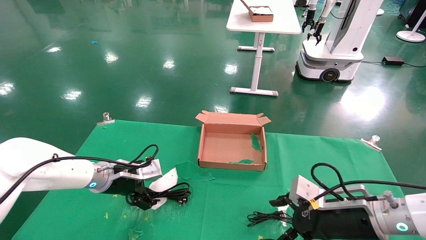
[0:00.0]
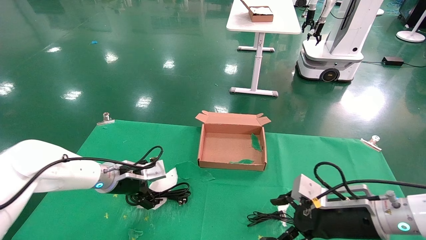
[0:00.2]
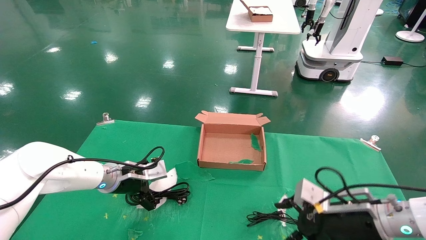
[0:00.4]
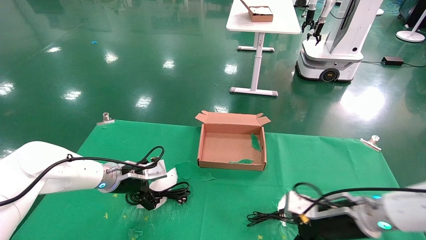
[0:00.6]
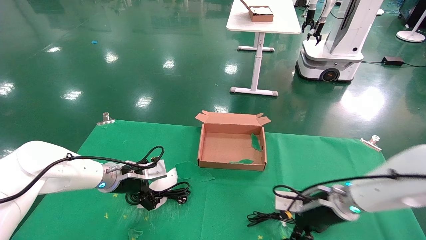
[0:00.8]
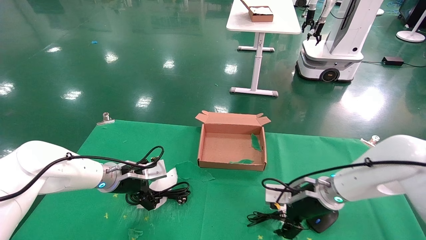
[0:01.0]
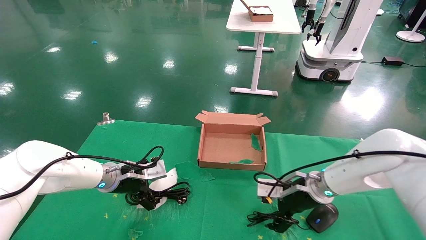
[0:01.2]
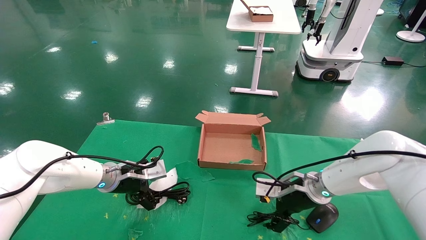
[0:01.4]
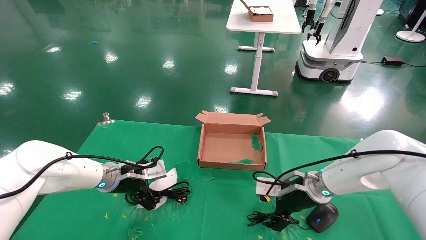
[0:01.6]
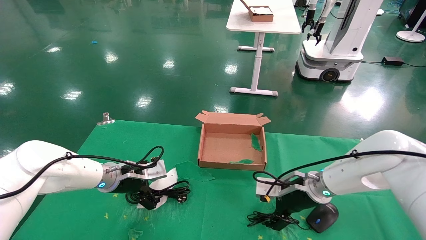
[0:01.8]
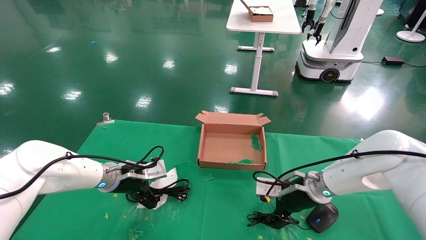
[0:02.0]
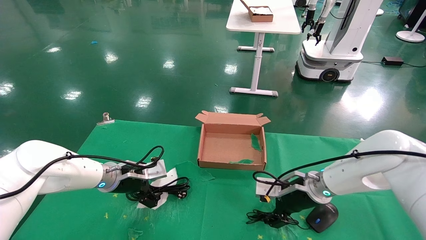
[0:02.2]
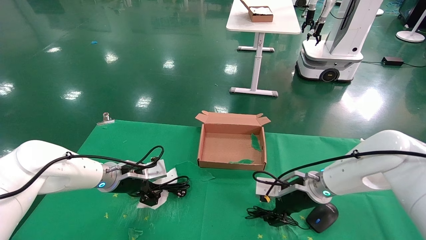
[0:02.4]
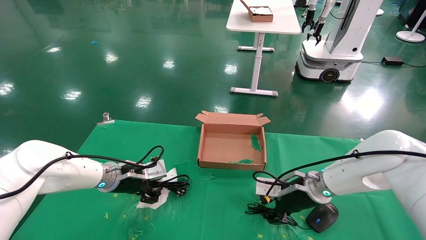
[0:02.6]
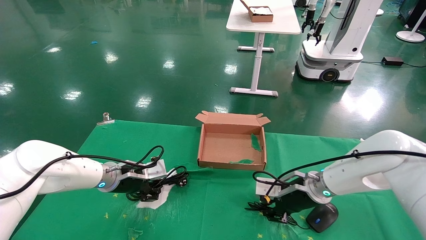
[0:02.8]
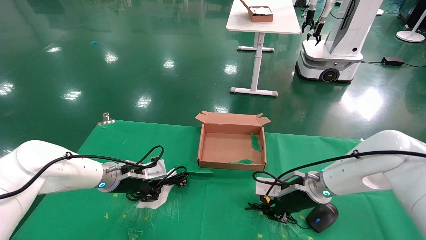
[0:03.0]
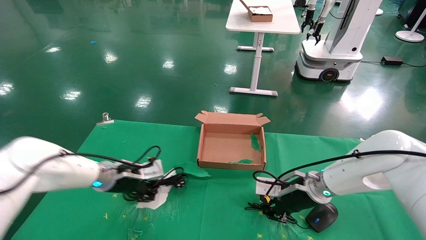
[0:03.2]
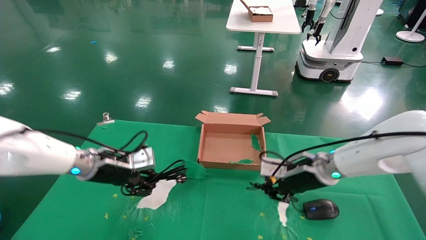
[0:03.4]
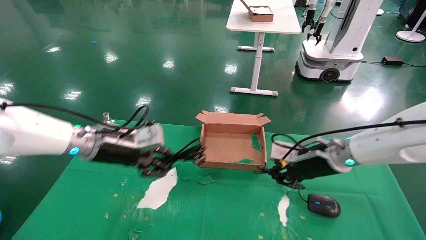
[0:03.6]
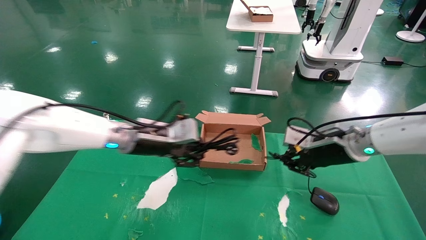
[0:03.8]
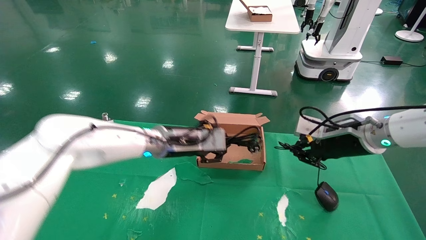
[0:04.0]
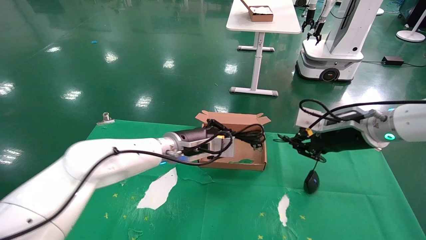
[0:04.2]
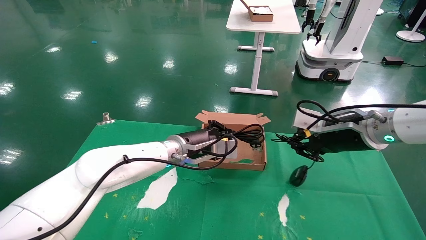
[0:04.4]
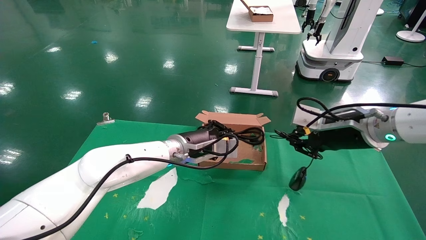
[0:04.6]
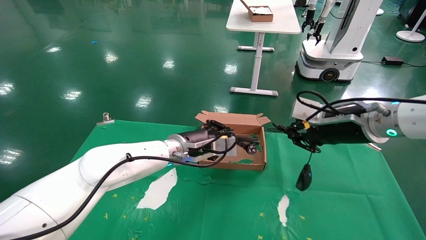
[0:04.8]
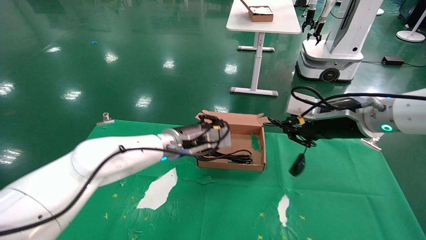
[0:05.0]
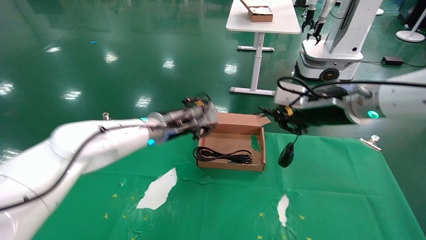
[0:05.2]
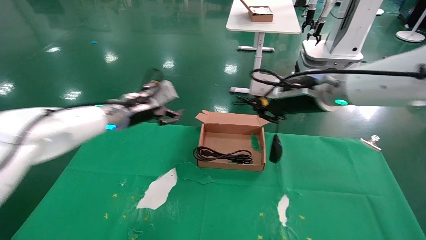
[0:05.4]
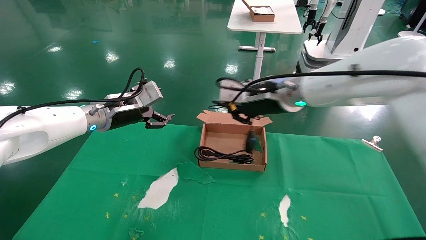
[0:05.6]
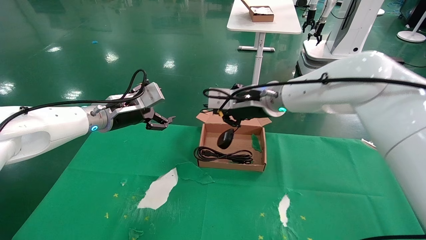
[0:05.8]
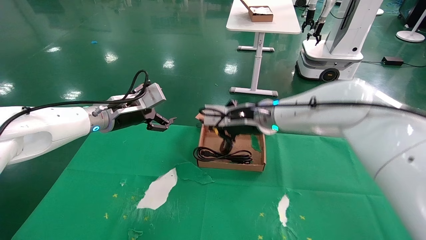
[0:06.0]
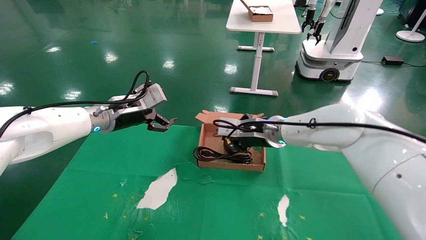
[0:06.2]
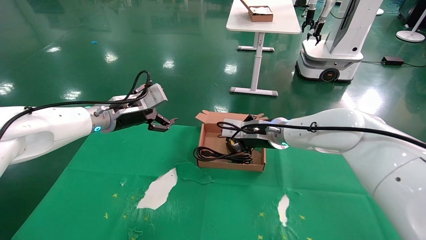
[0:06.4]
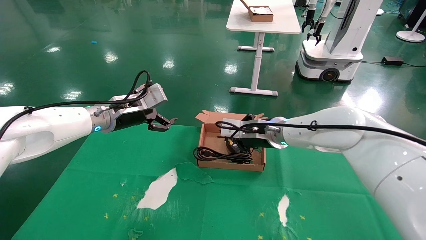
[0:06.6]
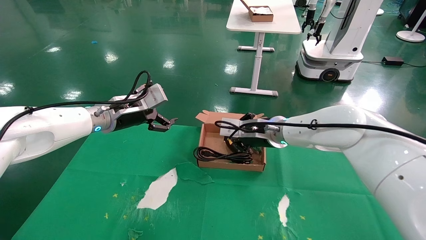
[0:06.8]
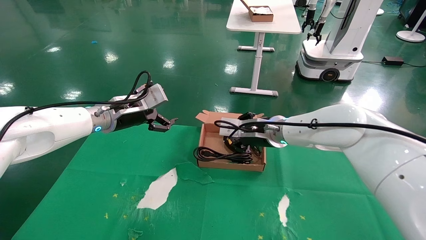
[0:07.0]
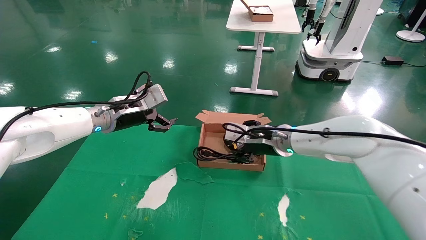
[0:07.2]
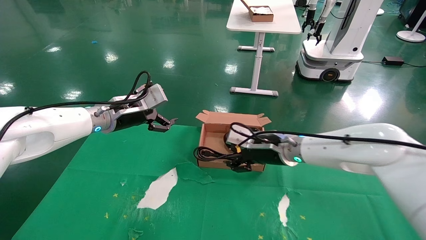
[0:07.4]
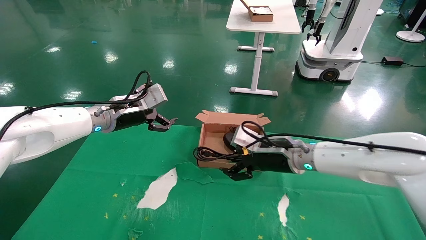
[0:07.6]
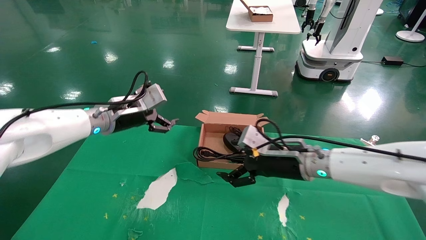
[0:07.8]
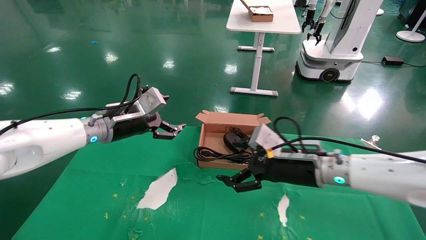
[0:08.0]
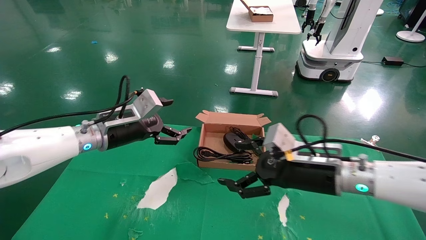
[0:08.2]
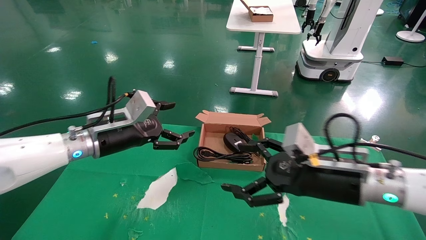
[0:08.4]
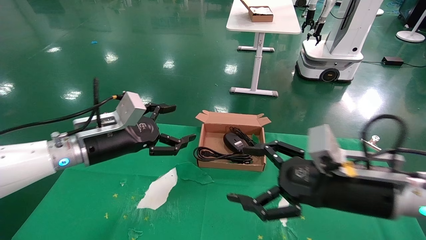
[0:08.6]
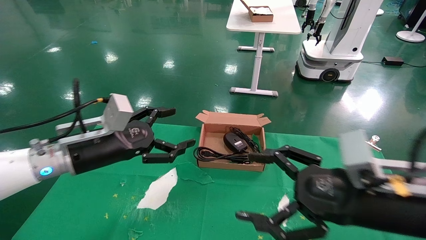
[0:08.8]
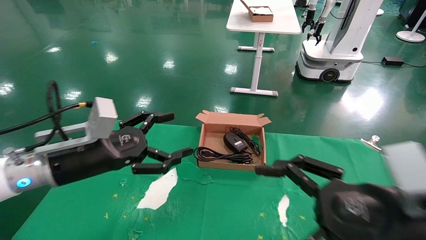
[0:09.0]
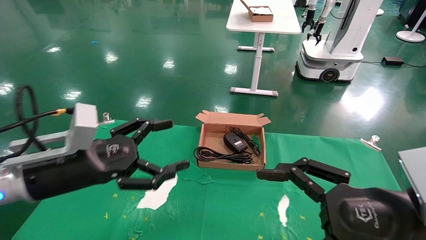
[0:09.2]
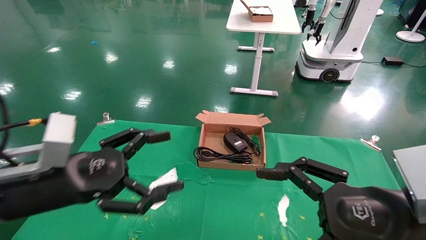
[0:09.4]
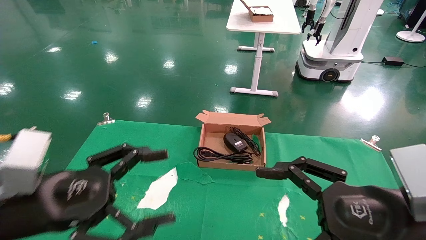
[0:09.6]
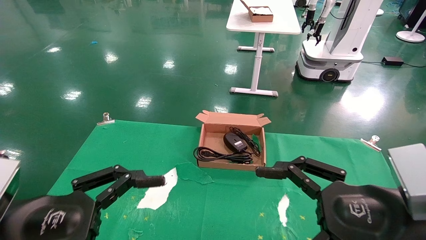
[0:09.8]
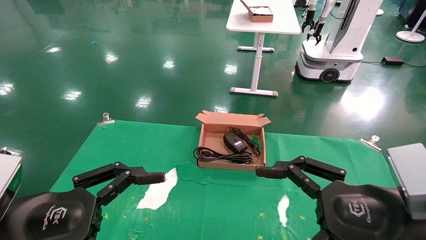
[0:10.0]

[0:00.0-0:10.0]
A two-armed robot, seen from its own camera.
Step, 0:00.0 to 0:03.0: Grab and lift both the mouse and power cord from the accessory packaging area at the same time.
Step, 0:03.2 to 0:06.6: Place the mouse and power cord into the box.
0:00.0 to 0:01.4: The right gripper travels forward and to the left by roughly 15 cm.
0:01.4 to 0:02.8: The right gripper closes up; the left gripper closes its fingers.
0:02.8 to 0:04.2: The right gripper shifts roughly 15 cm upward and to the right. Meanwhile the left gripper is displaced to the right and upward by approximately 15 cm.
0:04.2 to 0:05.8: The right gripper moves to the left, some 15 cm, while the left gripper moves to the left and upward, roughly 15 cm, and opens up.
0:05.8 to 0:07.2: The right gripper shifts about 10 cm downward, and opens.
0:07.2 to 0:08.6: The right gripper goes some 20 cm backward and to the right, and opens up, while the left gripper shifts roughly 10 cm backward.
0:08.6 to 0:10.0: The left gripper is displaced backward by roughly 20 cm. The right gripper goes about 10 cm backward.

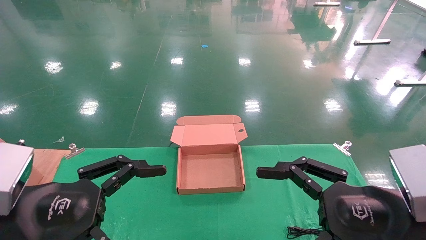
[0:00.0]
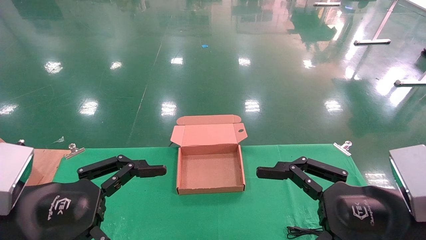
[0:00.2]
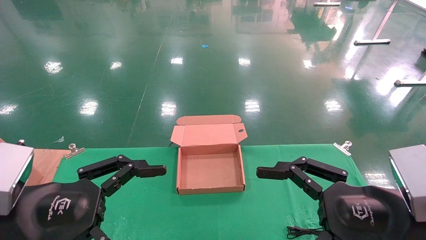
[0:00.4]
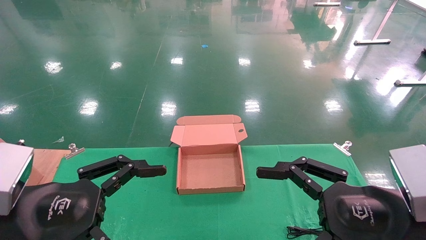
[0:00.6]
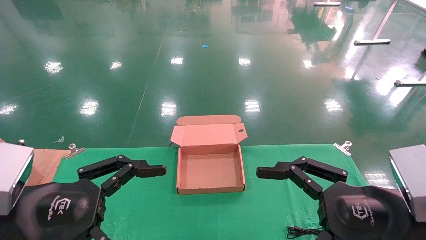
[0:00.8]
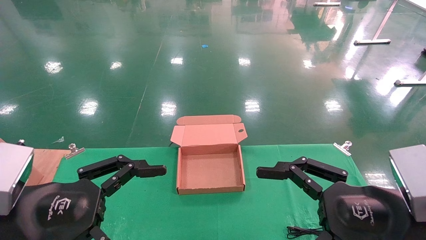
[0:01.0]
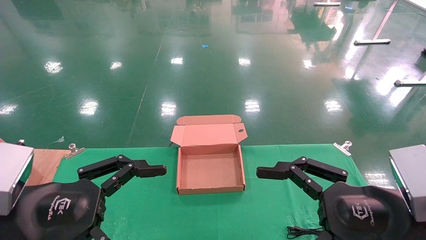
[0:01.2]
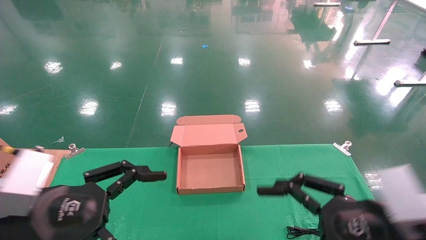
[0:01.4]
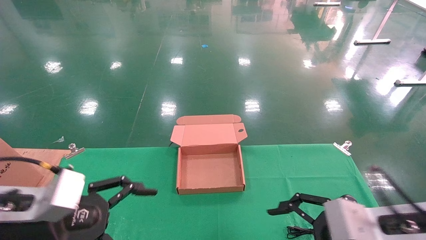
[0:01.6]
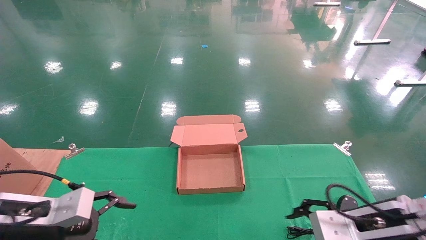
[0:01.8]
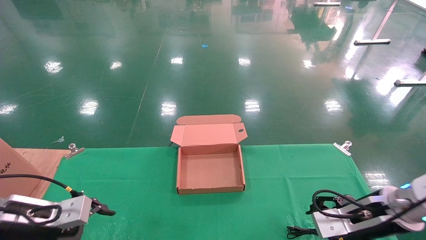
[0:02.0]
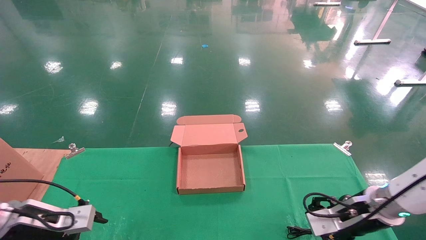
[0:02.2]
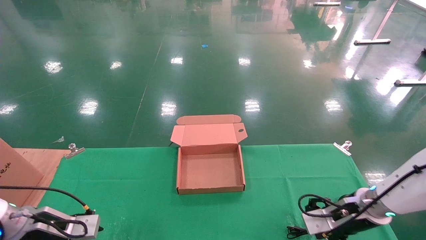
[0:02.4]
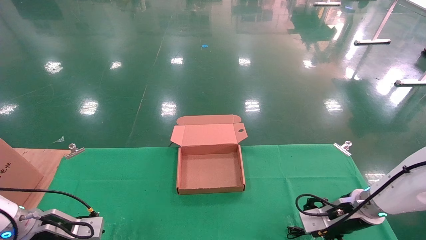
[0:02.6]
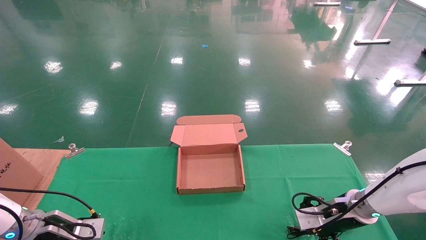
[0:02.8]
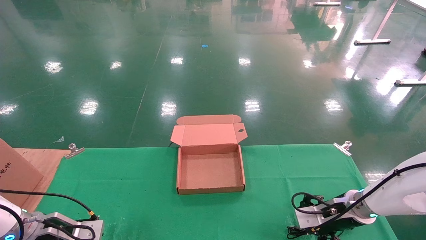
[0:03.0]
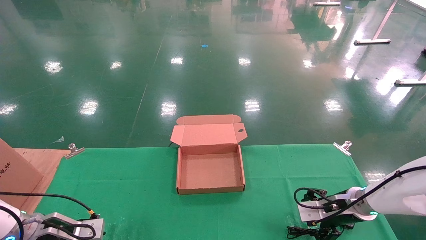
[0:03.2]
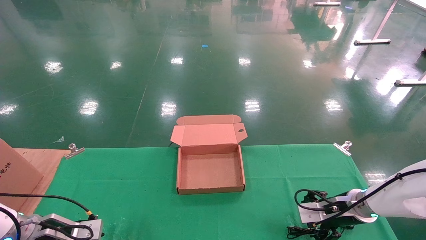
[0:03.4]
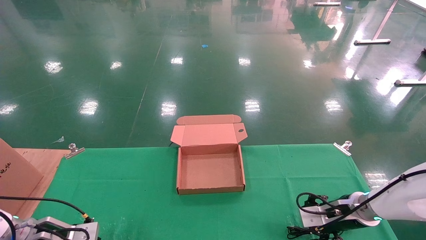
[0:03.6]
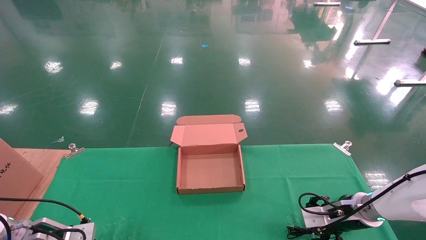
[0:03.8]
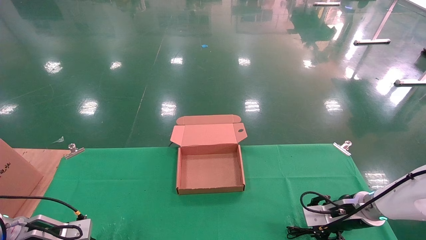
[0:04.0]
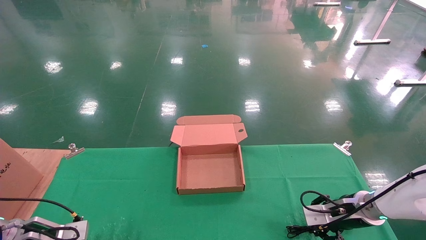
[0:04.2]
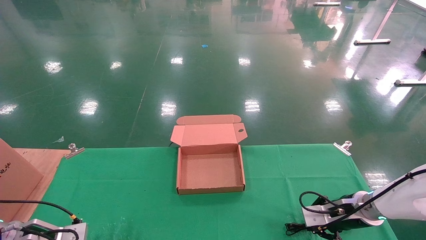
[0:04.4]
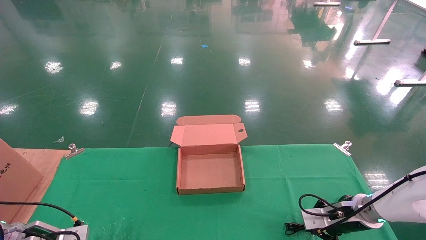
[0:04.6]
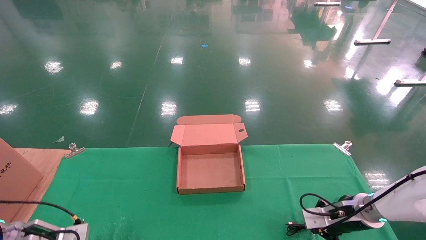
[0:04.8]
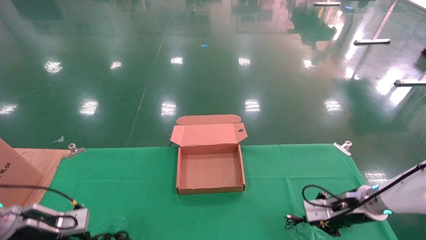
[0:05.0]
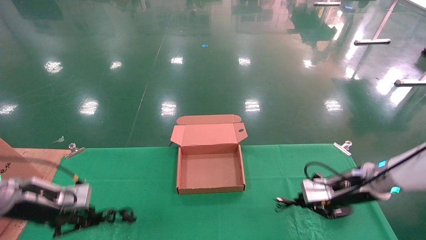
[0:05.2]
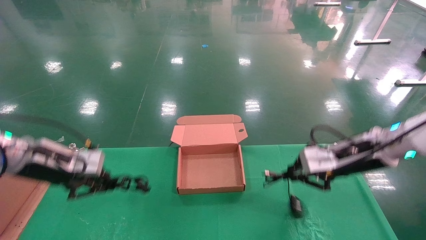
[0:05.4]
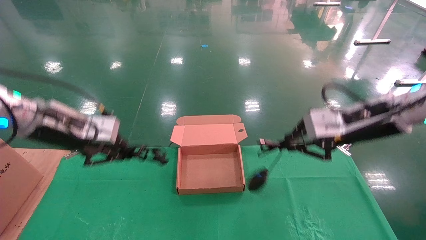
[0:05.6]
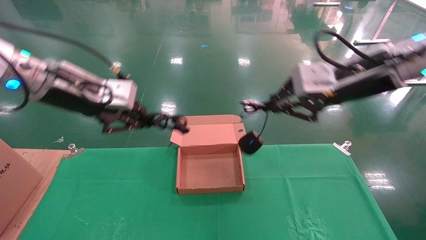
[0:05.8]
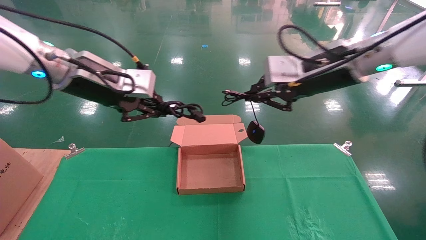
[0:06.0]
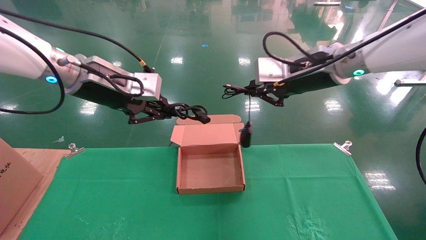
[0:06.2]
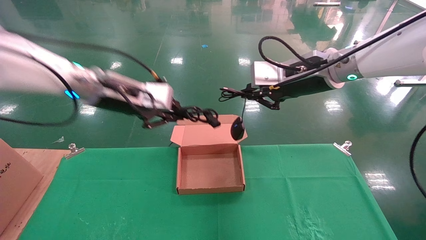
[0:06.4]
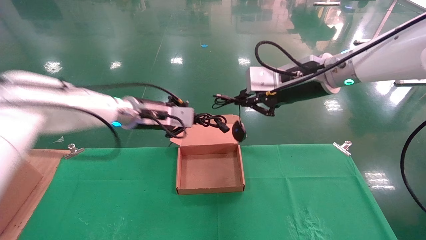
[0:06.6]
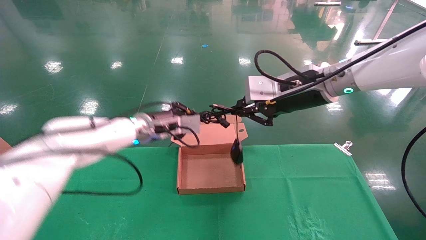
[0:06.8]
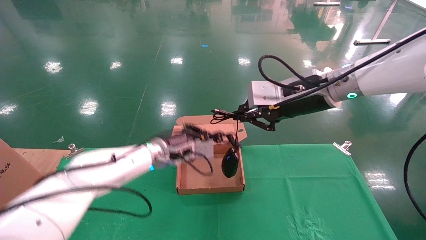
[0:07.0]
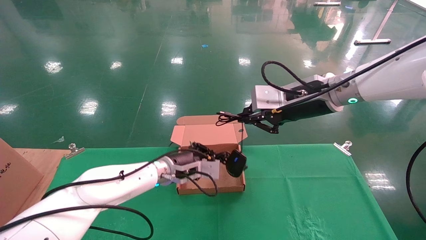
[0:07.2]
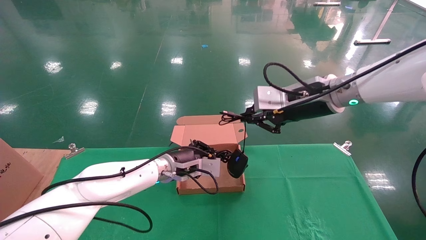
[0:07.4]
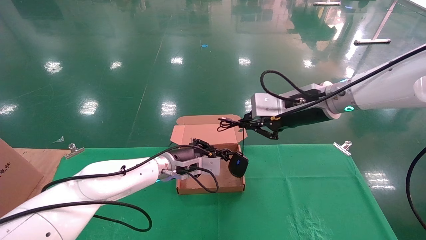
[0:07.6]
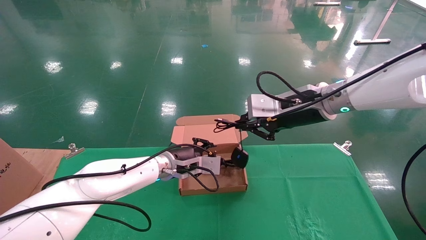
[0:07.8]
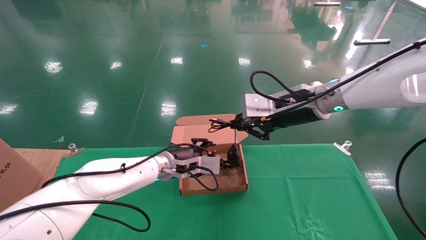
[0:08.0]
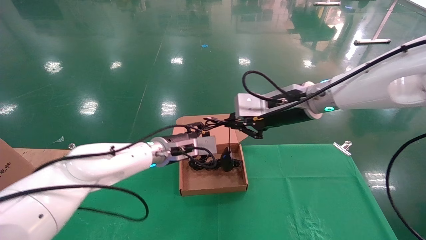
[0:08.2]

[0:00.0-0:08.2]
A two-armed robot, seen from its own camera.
Step, 0:02.0 to 0:05.2: Grab and lift both the mouse and power cord from the accessory packaging area at the same time.
0:00.0 to 0:01.6: Both grippers travel together forward, approximately 5 cm.
0:01.6 to 0:03.2: The right gripper shifts approximately 20 cm forward and downward. The left gripper goes roughly 20 cm downward, forward and to the left.
0:03.2 to 0:05.0: The left gripper closes up. Meanwhile the right gripper closes its fingers.
0:05.0 to 0:06.6: The right gripper goes approximately 30 cm upward and to the left; the left gripper is displaced to the right, upward and forward by approximately 30 cm.
0:06.6 to 0:08.2: The left gripper is displaced downward by approximately 10 cm, and opens up; the right gripper ends up some 5 cm from where it was.
